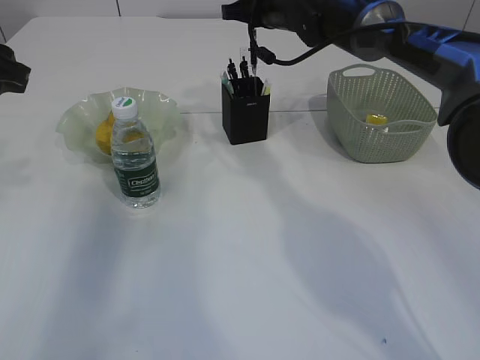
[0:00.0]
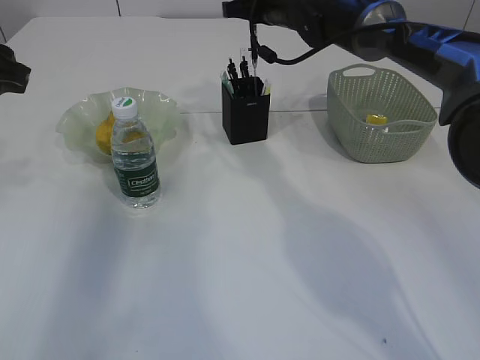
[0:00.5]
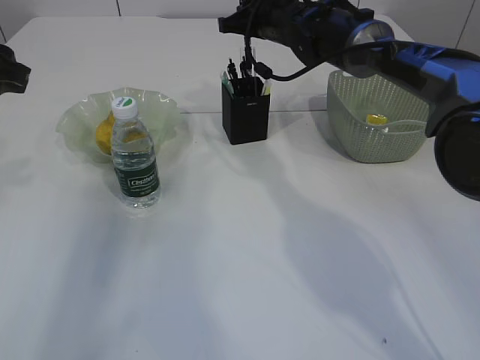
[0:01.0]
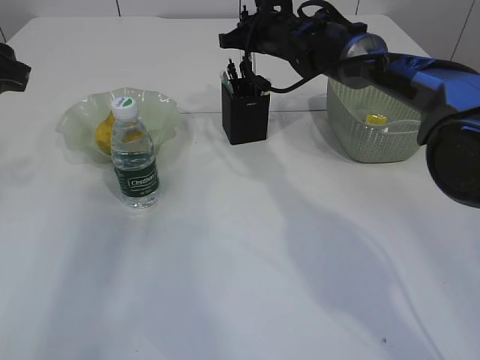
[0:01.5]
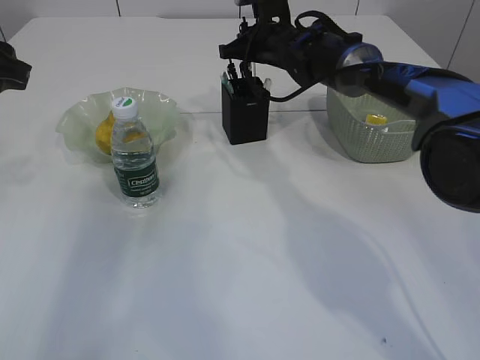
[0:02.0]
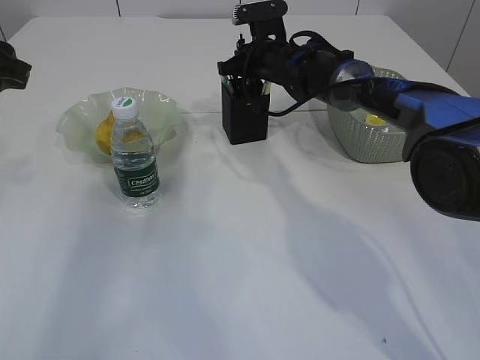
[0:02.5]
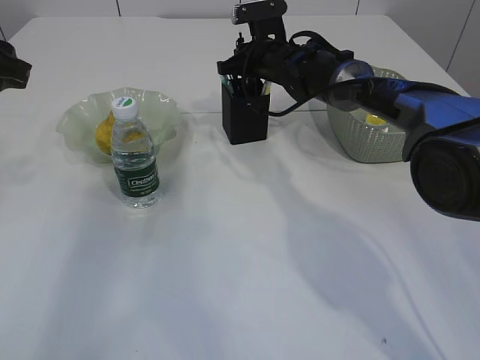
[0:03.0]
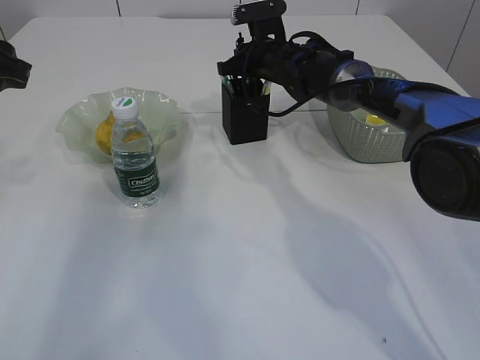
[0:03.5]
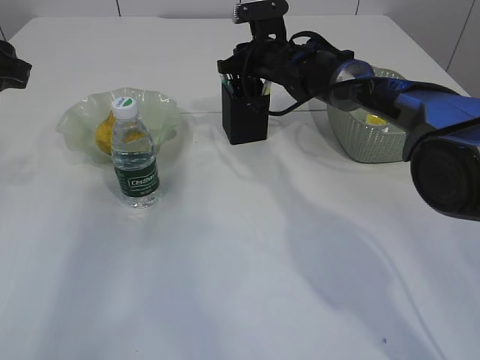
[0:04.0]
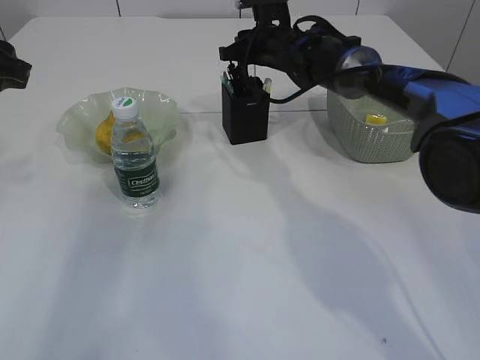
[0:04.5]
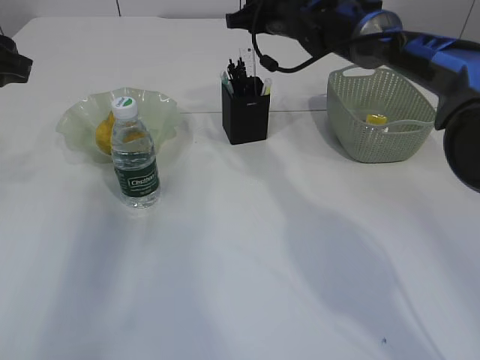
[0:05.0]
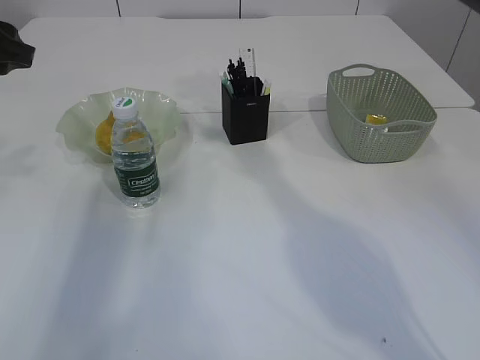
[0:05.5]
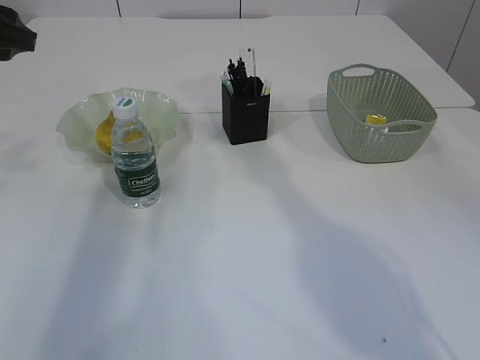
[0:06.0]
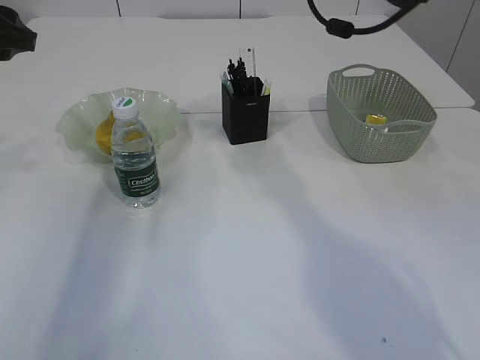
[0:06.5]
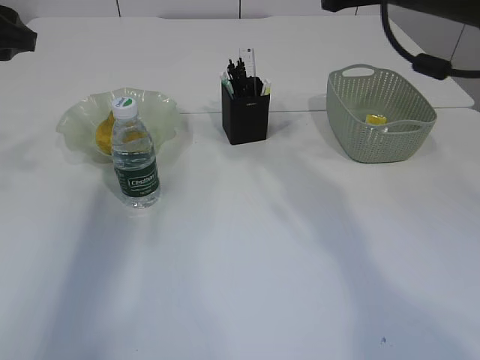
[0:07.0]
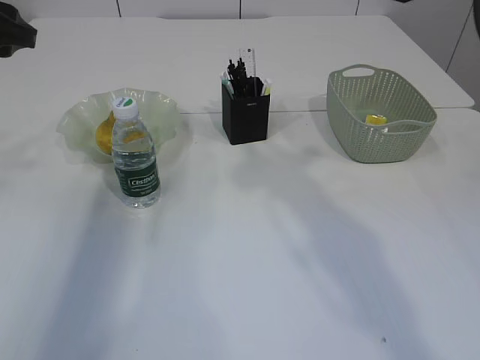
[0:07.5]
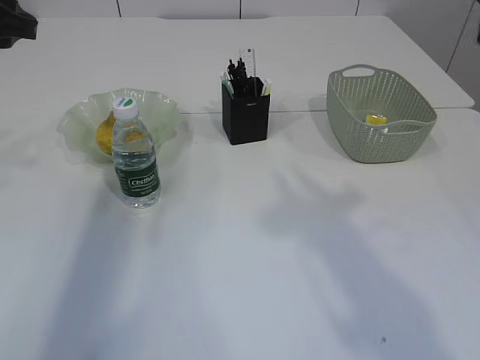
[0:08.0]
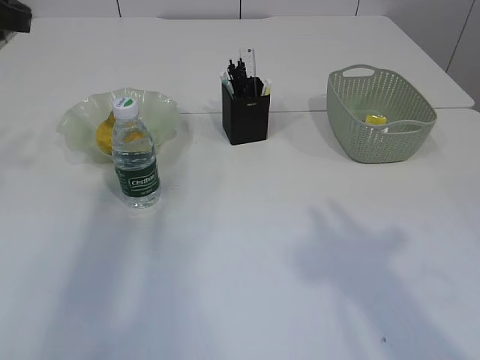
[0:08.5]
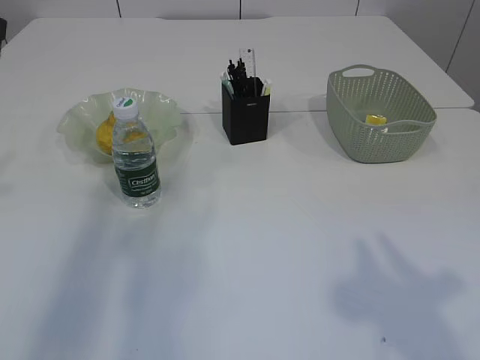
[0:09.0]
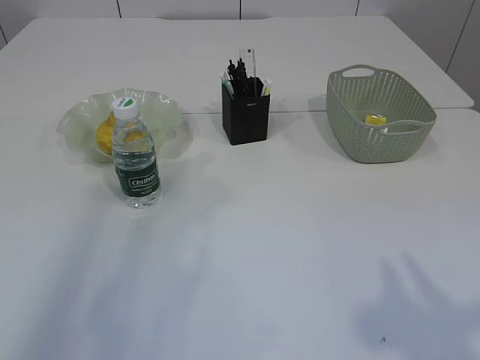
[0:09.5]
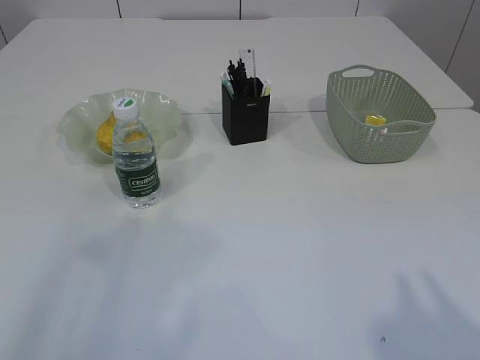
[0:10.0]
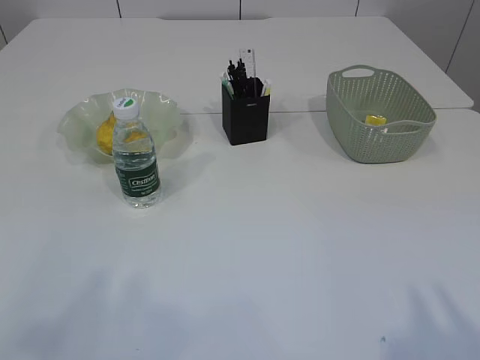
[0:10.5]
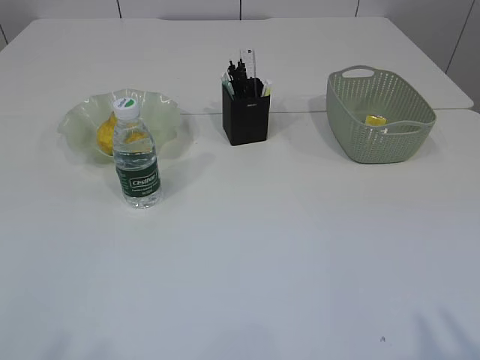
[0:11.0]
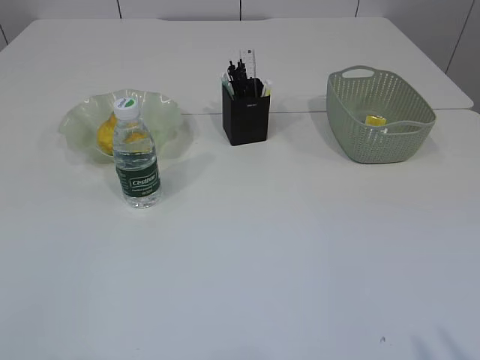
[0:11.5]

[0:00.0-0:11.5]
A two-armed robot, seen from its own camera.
Step, 0:00.0 to 0:04.5: Place the pen into the pen holder.
0:00.0 to 0:02.0: The right gripper travels downward by some 5 cm.
0:02.0 to 0:04.0: The grippers make only small movements.
0:04.0 to 0:06.0: The right gripper heads upward, covering about 20 cm.
0:07.5 to 0:09.5: The right gripper is displaced backward by approximately 20 cm, while the left gripper heads backward, covering roughly 15 cm.
0:09.5 to 0:11.5: The left gripper goes approximately 25 cm backward.

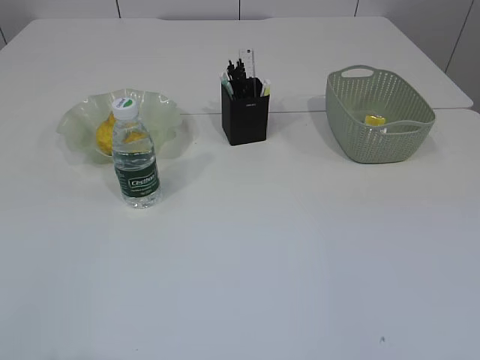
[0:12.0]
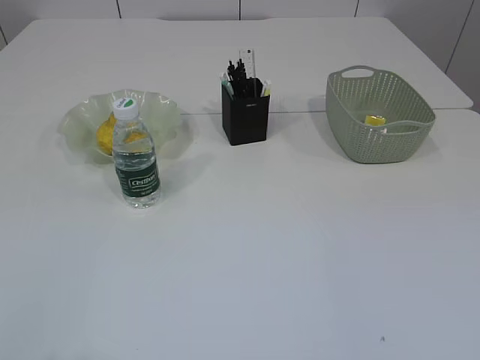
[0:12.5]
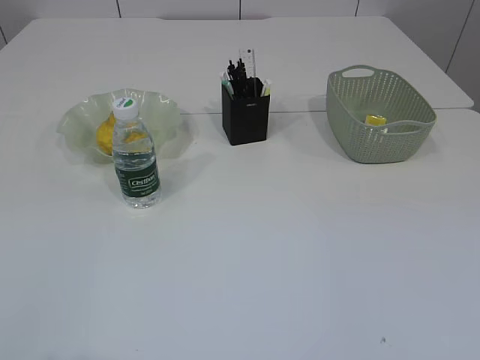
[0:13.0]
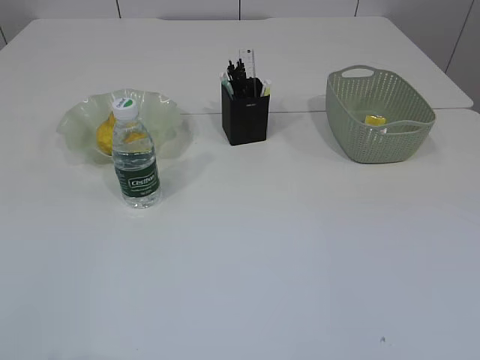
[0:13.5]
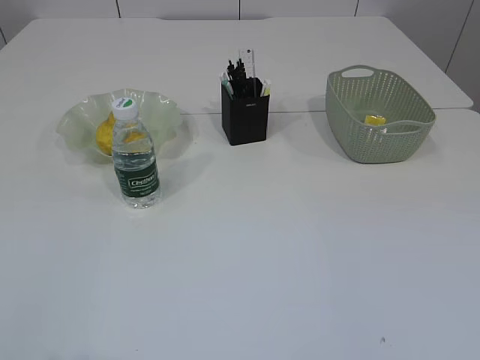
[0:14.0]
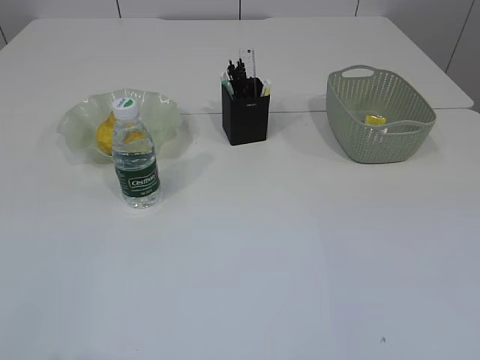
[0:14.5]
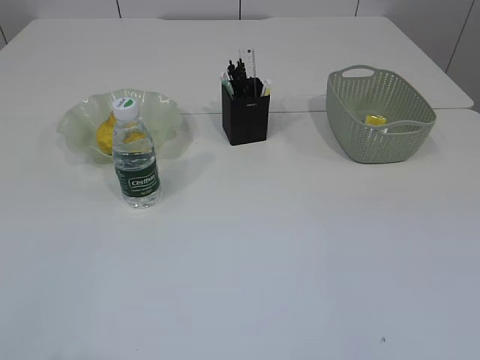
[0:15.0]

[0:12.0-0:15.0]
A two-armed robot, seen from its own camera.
0:13.5 to 0:15.0: Both grippers stay put.

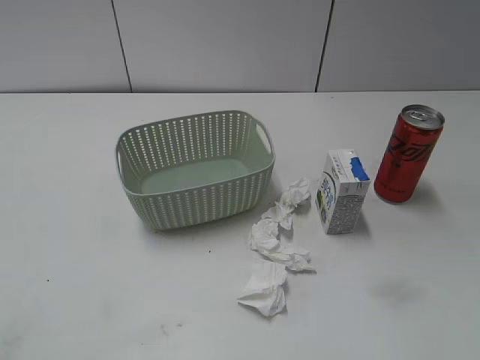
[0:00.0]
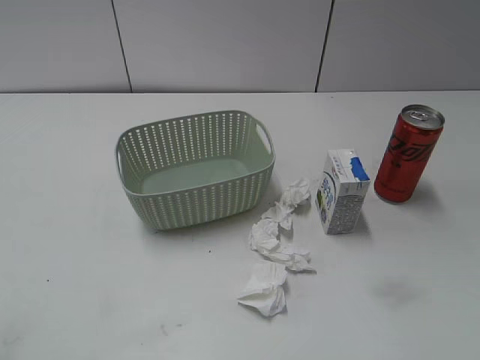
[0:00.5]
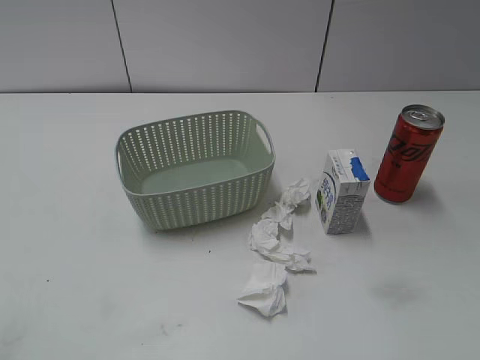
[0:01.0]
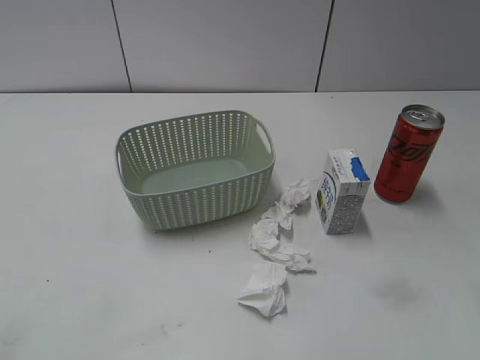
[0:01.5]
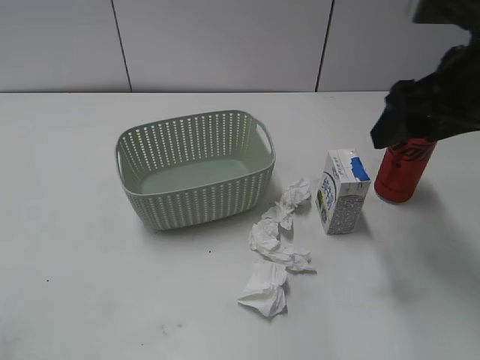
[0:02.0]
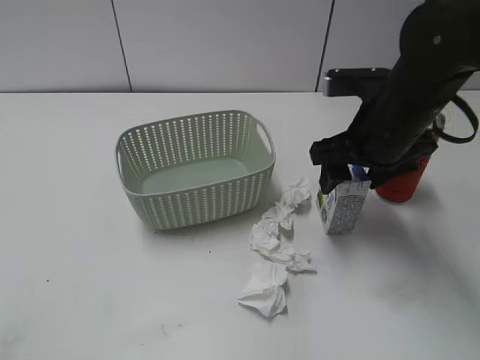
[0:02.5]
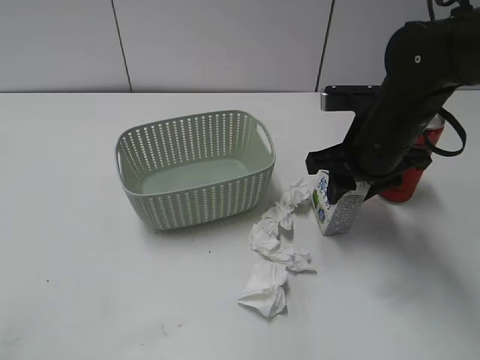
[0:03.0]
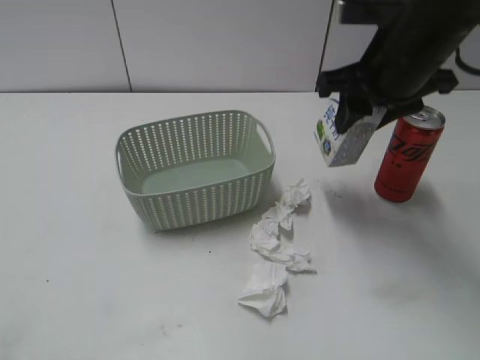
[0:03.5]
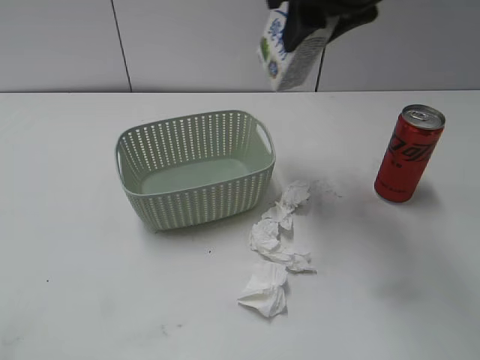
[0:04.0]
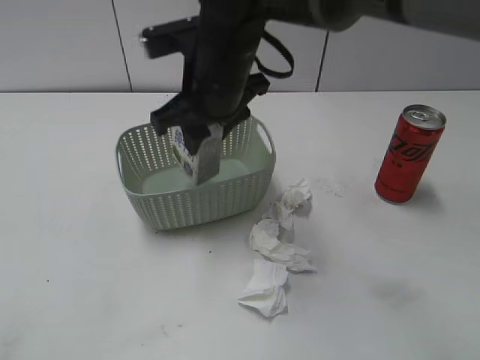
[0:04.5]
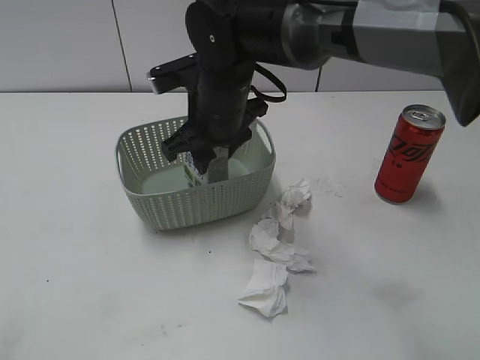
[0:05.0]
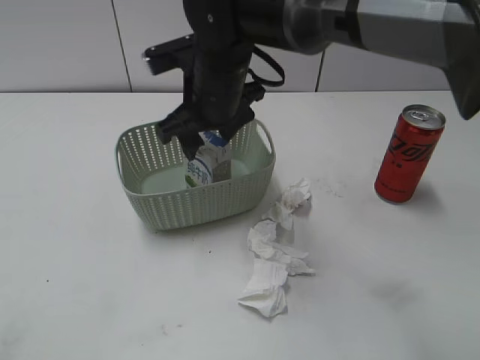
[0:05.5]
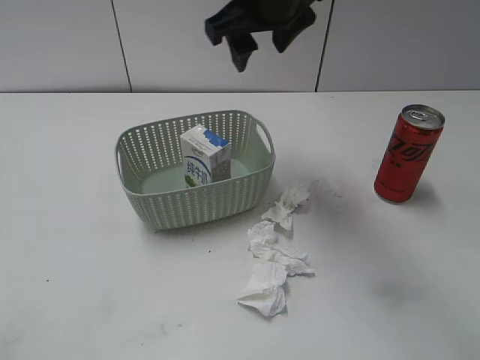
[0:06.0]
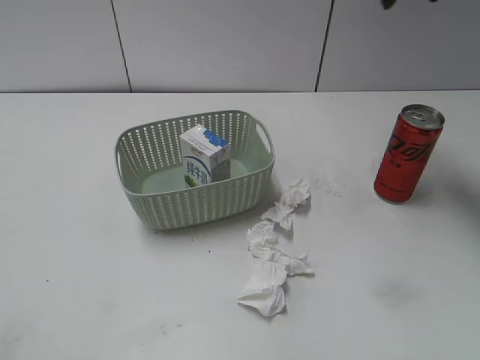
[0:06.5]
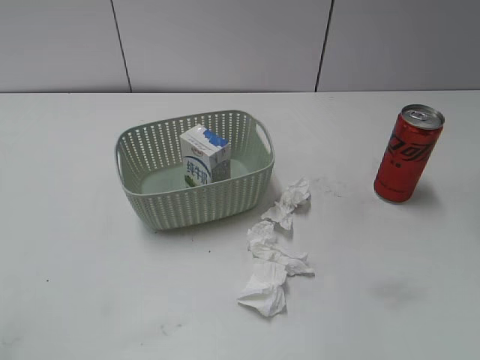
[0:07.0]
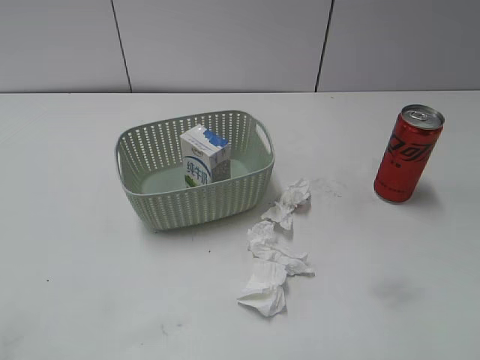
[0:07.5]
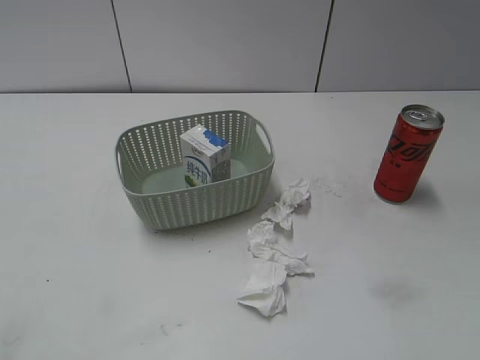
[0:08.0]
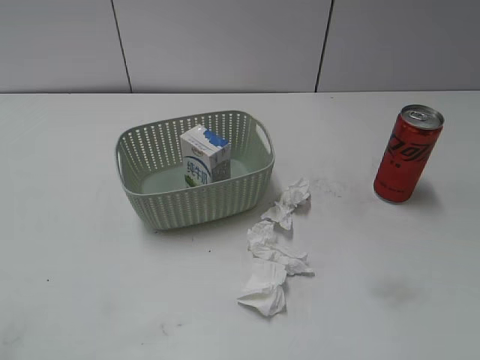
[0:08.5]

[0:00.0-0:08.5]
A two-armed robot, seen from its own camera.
Step, 0:02.0 to 0:02.5: Grasp the milk with right gripper.
Step, 0:03.0 to 0:05.5: Place the milk in the basket with right gripper.
0:02.0 to 0:04.0: The right gripper heads to the left and forward, covering approximately 15 cm, reaches approximately 10 cm downward, then returns, and closes.
0:04.0 to 0:06.5: The right gripper moves to the right and forward, roughly 15 cm, and opens its fingers.
0:06.5 to 0:08.5: The right gripper travels backward by some 40 cm.

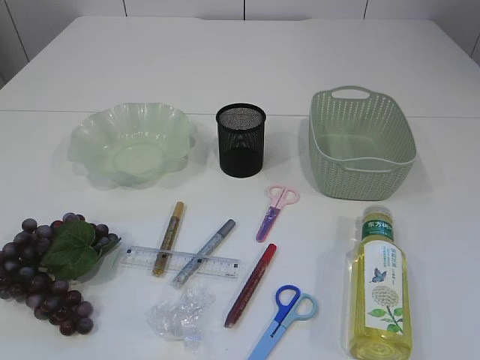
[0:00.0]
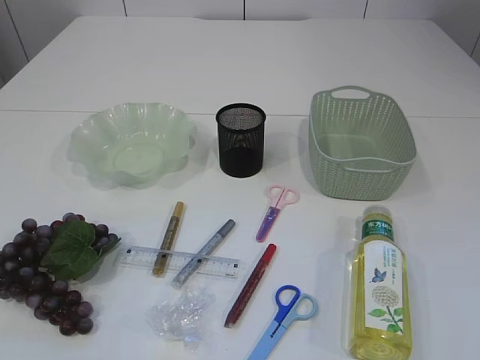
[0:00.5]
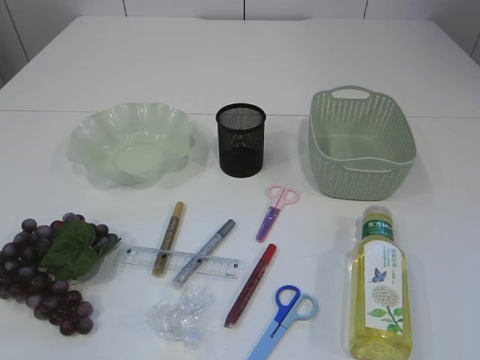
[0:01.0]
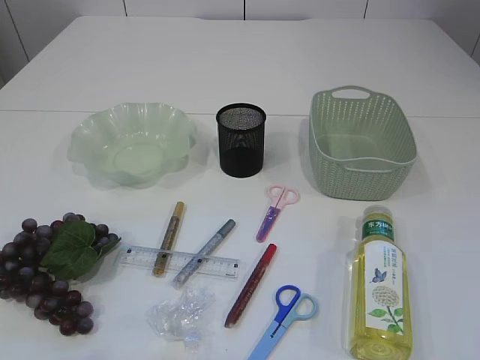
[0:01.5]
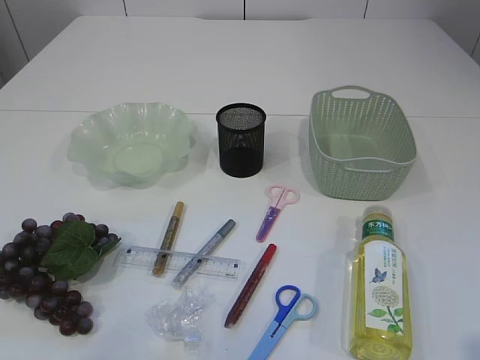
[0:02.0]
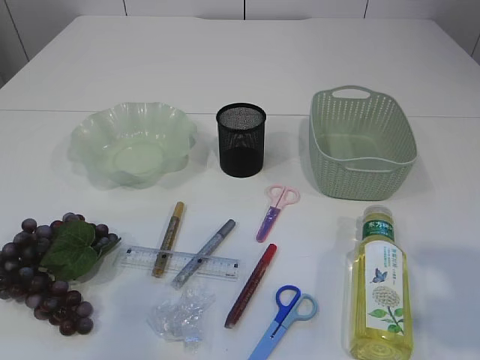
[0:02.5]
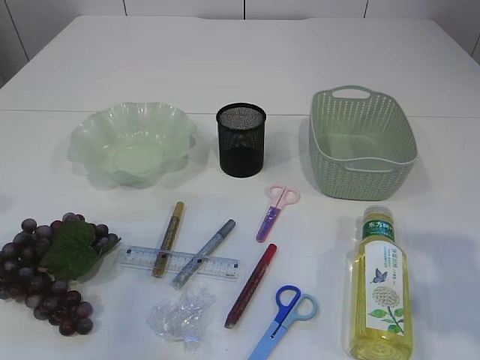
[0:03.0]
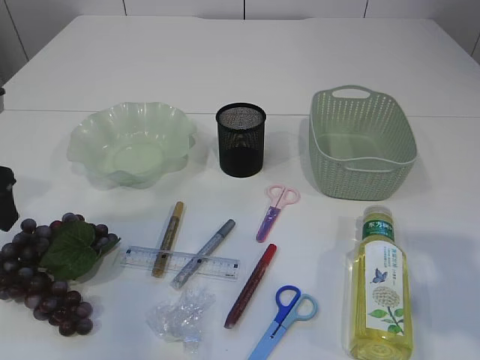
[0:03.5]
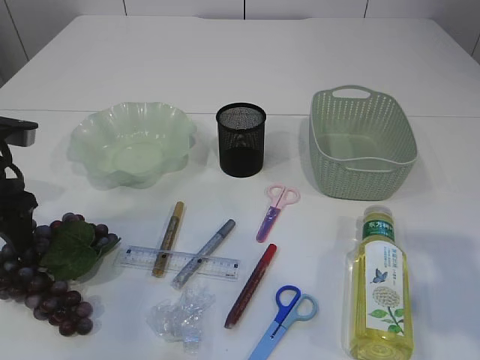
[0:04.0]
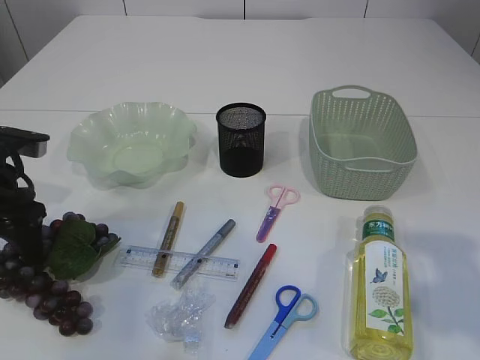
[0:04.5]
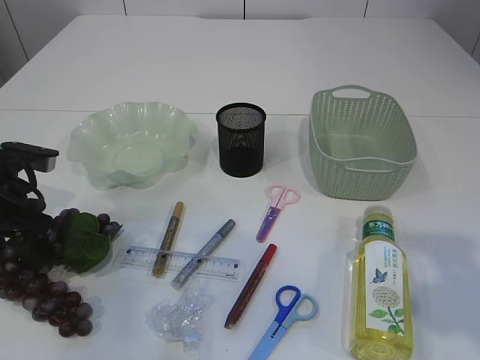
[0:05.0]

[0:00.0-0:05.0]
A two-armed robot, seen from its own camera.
0:02.5 to 0:05.0: The left gripper is displaced downward and forward by roughly 30 cm.
